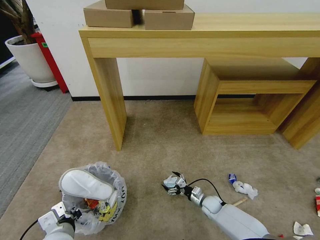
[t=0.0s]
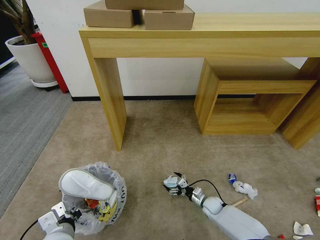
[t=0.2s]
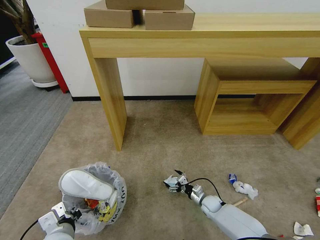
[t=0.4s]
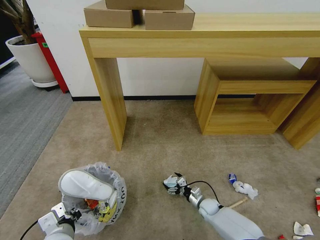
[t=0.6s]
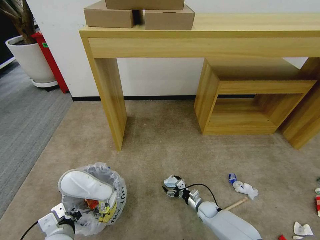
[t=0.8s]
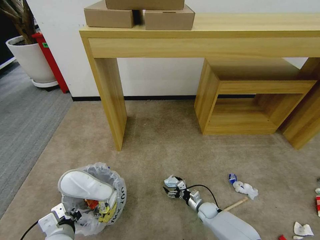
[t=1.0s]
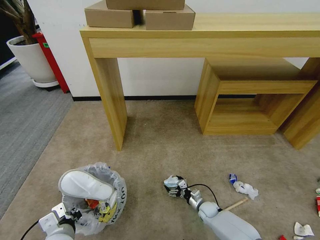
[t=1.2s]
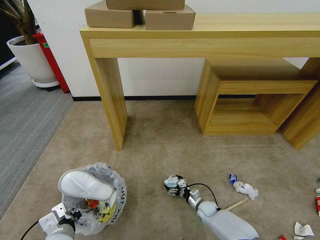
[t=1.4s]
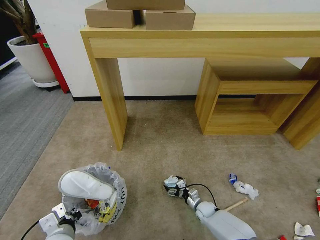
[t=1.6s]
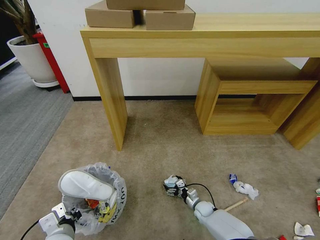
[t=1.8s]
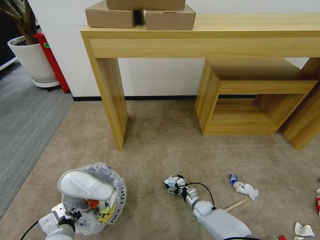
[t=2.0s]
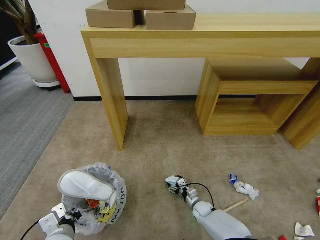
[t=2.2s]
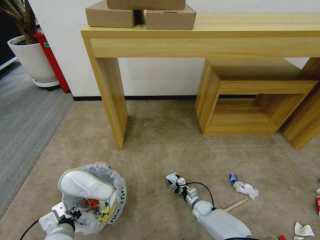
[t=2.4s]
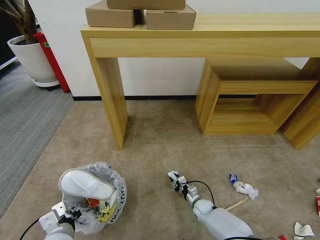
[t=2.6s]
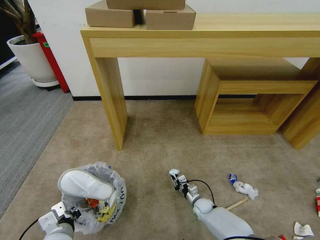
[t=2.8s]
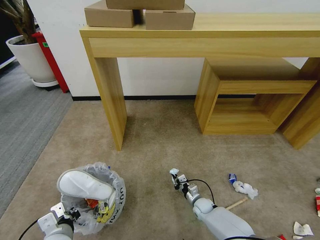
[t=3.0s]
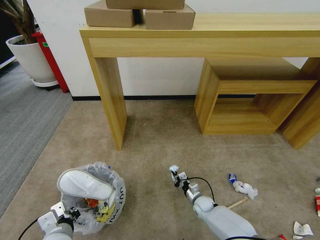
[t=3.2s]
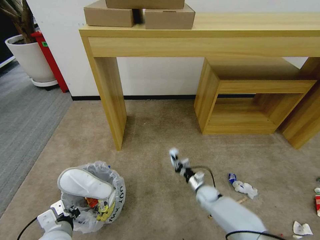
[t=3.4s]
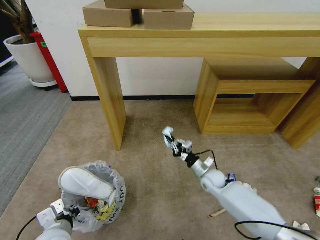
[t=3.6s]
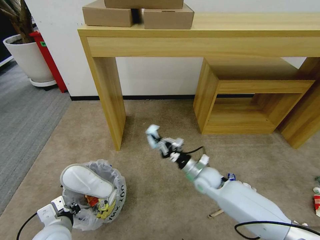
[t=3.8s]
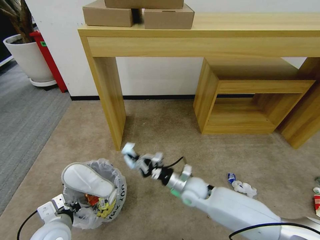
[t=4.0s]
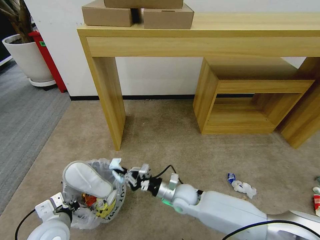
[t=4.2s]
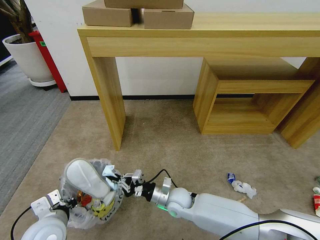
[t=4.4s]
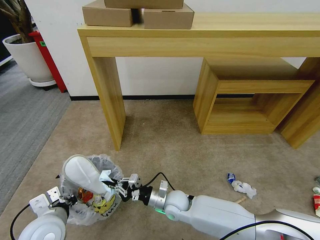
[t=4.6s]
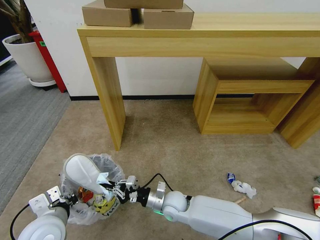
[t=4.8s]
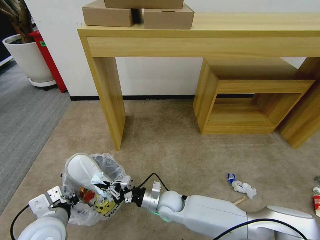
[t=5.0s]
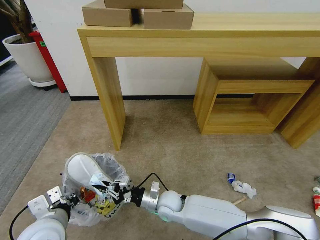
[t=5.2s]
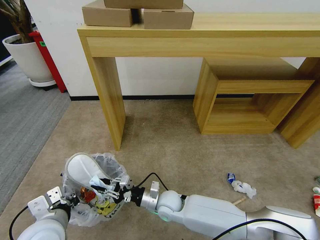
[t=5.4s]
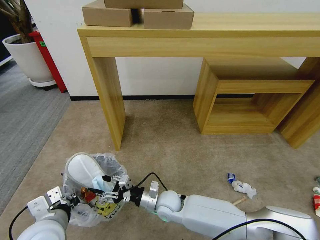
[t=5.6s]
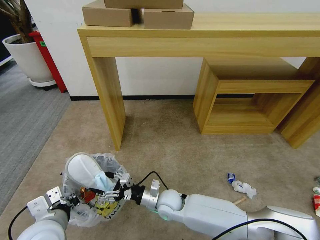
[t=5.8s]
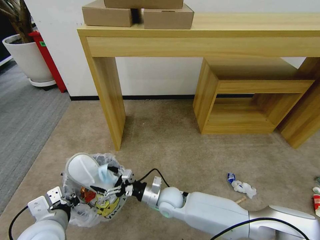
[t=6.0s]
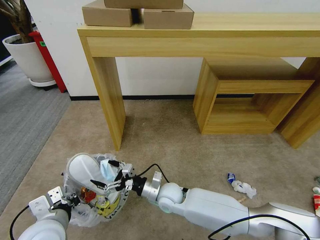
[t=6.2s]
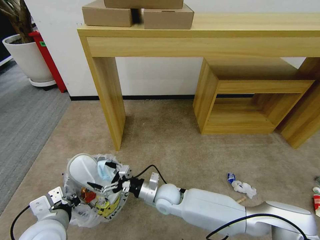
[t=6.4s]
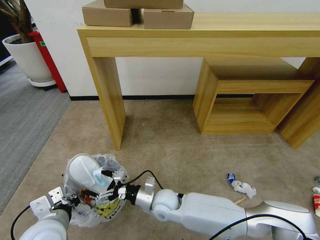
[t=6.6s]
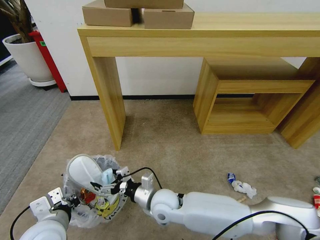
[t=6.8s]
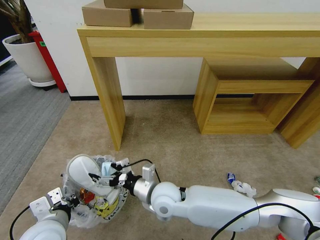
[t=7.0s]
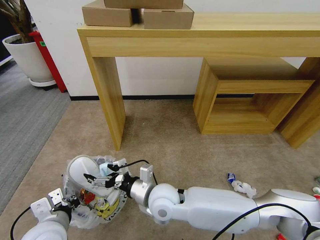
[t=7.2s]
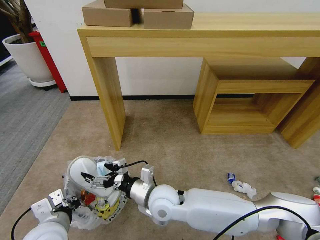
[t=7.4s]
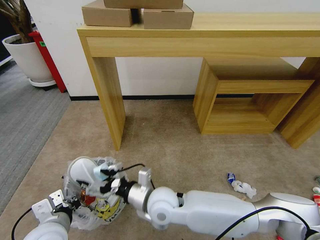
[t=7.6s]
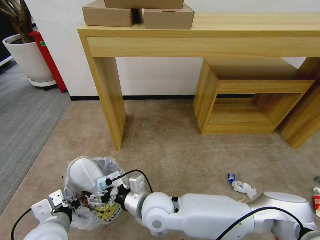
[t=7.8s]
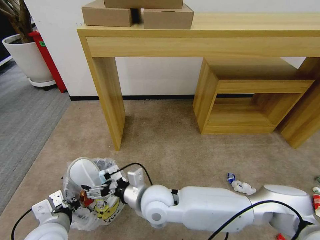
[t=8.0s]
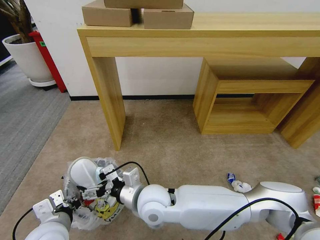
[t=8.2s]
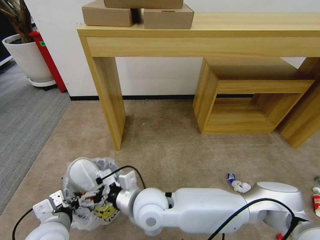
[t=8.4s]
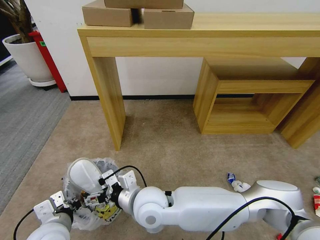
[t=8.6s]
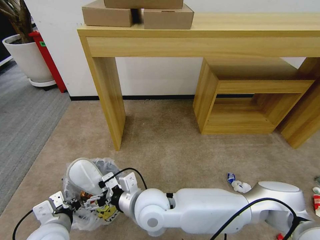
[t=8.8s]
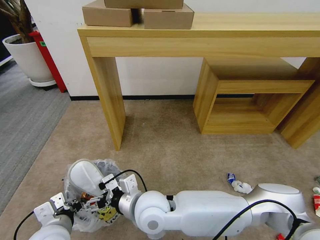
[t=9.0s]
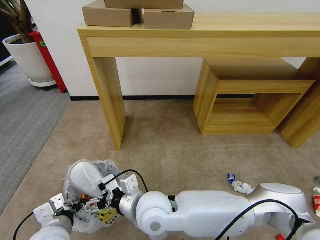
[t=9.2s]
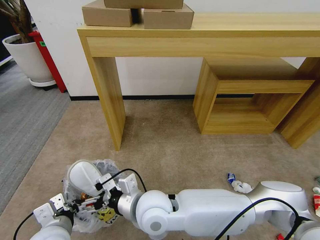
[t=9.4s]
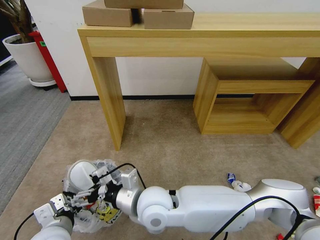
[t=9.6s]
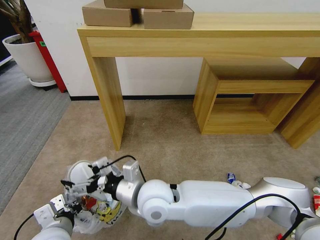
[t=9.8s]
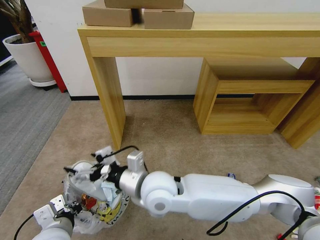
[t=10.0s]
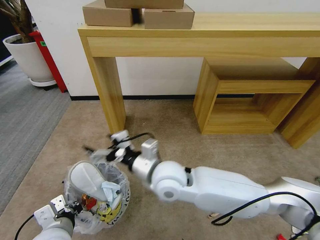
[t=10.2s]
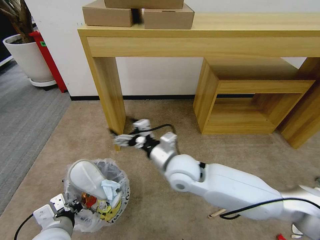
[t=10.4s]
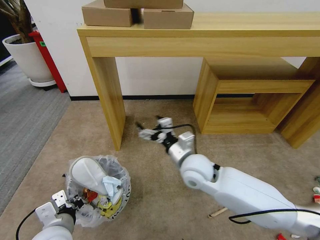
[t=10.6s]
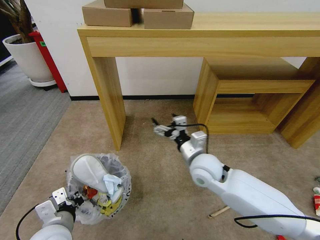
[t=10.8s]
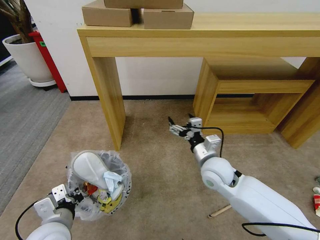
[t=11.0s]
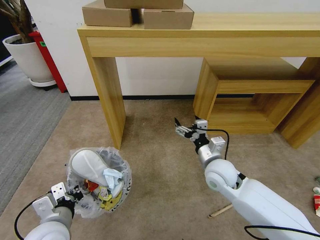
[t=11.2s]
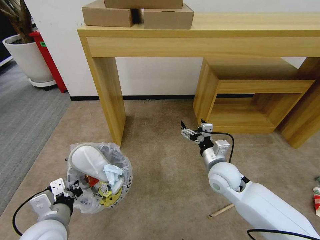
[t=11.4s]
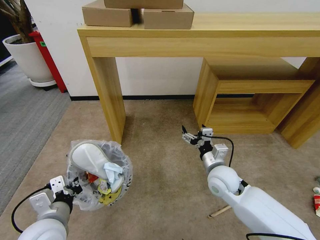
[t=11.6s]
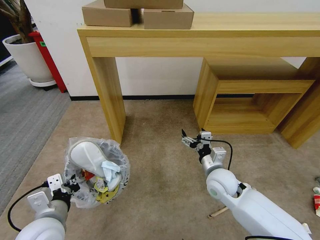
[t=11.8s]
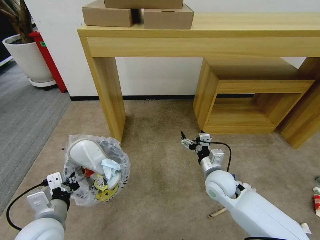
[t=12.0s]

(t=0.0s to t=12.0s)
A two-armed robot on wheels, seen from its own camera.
Task of the whole recording: Pick up the trash bin and place the garbage on the floor into it.
t=0.0s - t=1.6s: The grippers make only small movements.
t=1.6s - t=3.0s: The right gripper closes its fingers.
t=3.0s - t=4.4s: The left gripper travels upward by some 5 cm. The right gripper heads upward and to the left, covering approximately 25 cm.
t=4.4s - t=6.0s: The right gripper opens.
t=6.0s - t=7.6s: The right gripper travels upward by some 10 cm.
t=7.6s - t=9.0s: The right gripper changes place by about 5 cm.
t=9.0s - t=10.4s: The right gripper heads forward and to the right, covering roughly 10 cm.
t=10.4s - t=12.0s: The right gripper is displaced to the right and downward by roughly 20 cm.

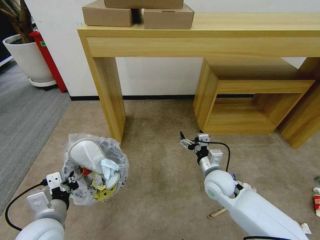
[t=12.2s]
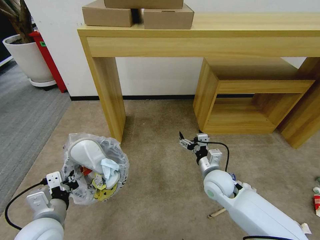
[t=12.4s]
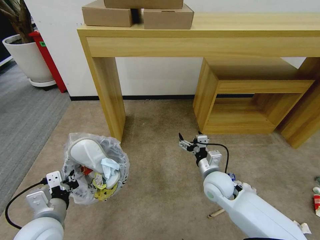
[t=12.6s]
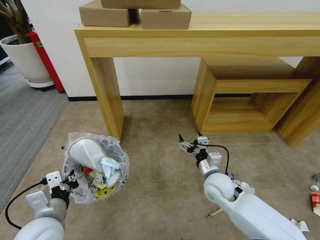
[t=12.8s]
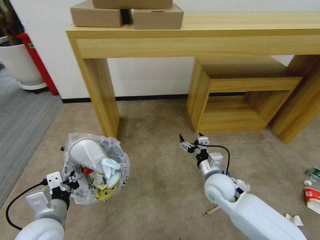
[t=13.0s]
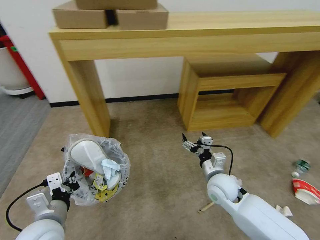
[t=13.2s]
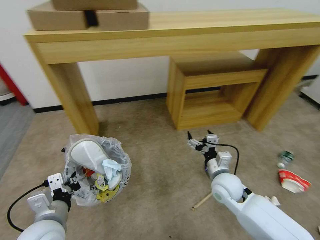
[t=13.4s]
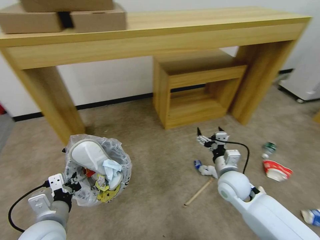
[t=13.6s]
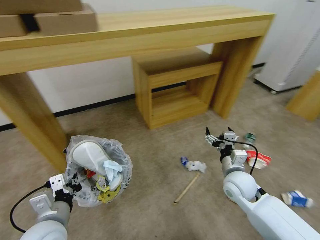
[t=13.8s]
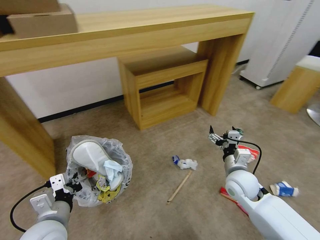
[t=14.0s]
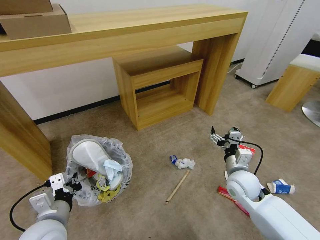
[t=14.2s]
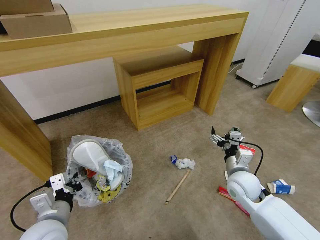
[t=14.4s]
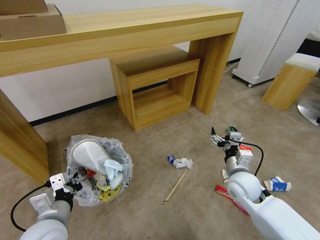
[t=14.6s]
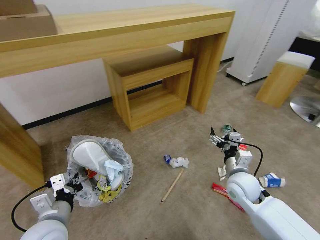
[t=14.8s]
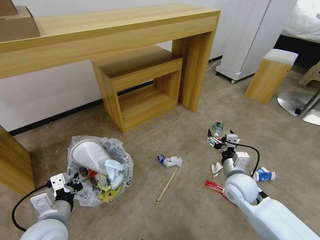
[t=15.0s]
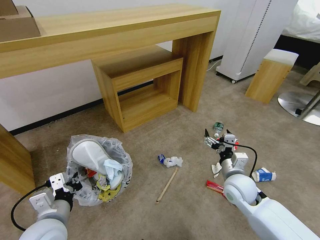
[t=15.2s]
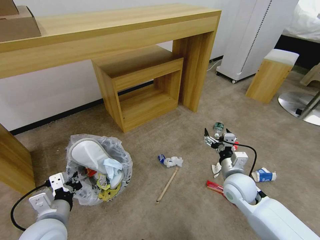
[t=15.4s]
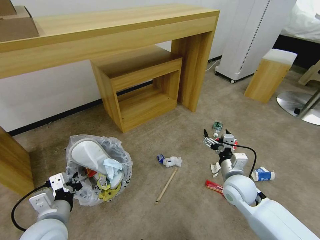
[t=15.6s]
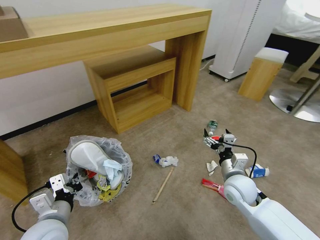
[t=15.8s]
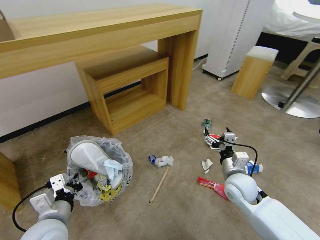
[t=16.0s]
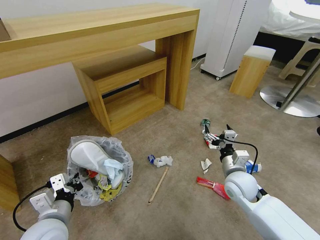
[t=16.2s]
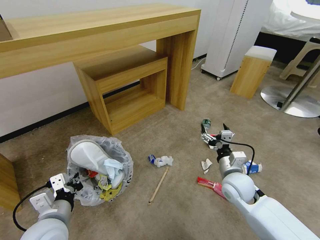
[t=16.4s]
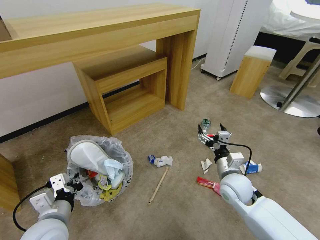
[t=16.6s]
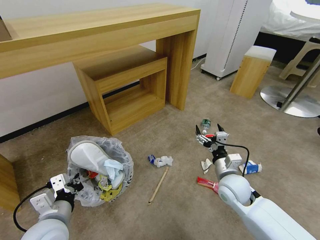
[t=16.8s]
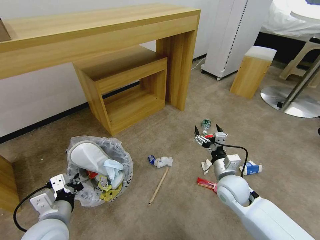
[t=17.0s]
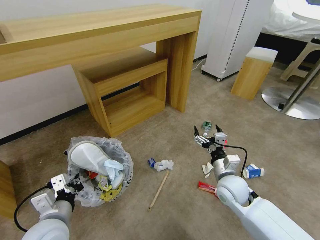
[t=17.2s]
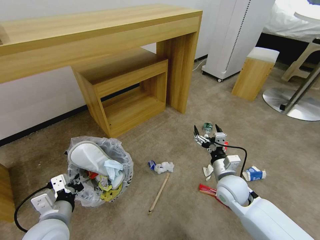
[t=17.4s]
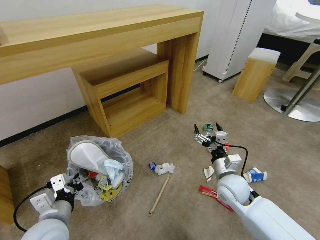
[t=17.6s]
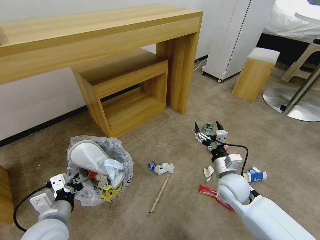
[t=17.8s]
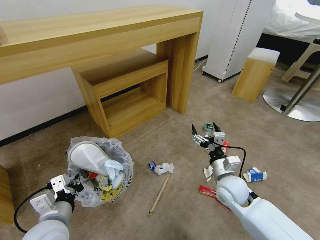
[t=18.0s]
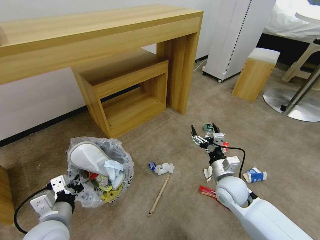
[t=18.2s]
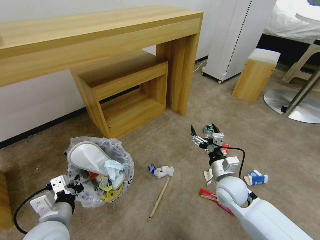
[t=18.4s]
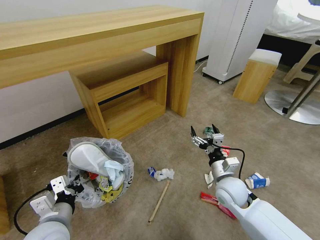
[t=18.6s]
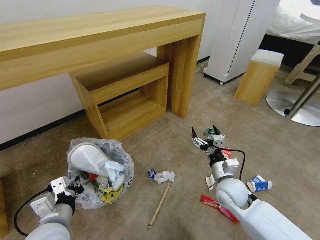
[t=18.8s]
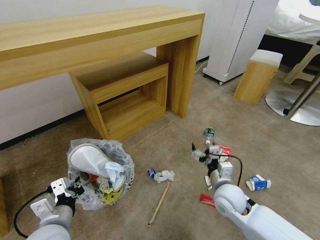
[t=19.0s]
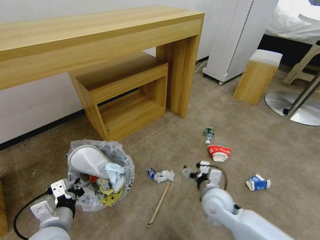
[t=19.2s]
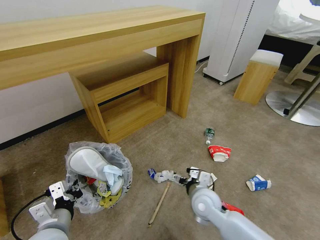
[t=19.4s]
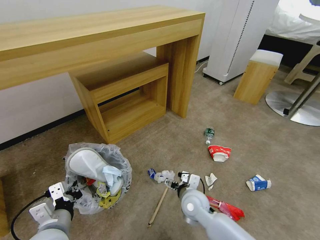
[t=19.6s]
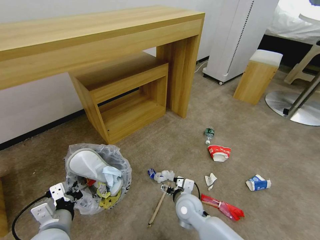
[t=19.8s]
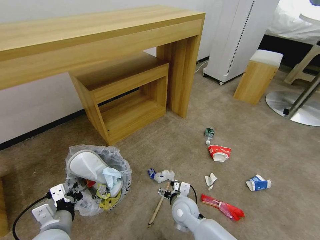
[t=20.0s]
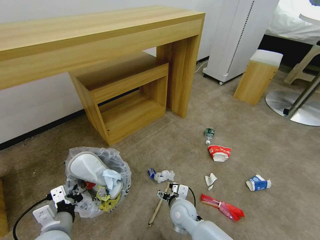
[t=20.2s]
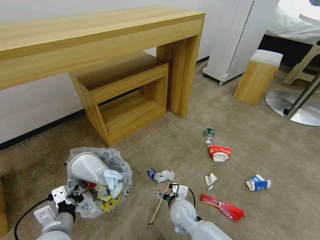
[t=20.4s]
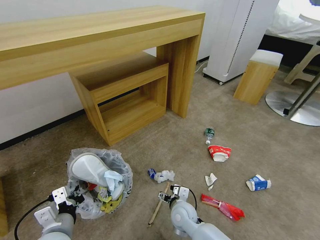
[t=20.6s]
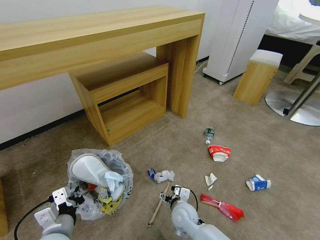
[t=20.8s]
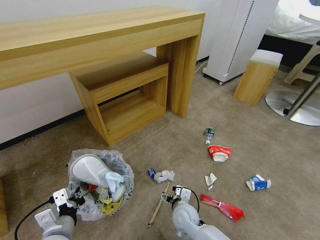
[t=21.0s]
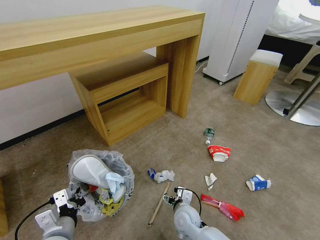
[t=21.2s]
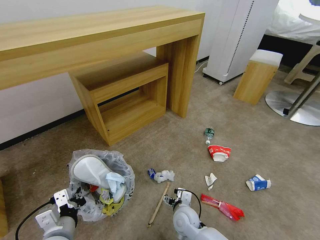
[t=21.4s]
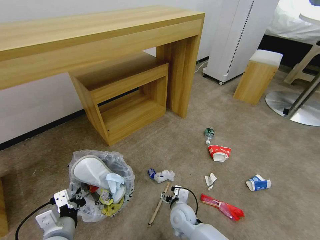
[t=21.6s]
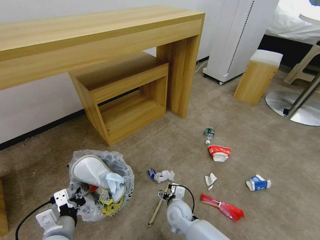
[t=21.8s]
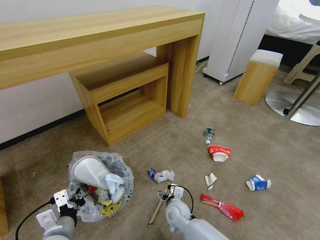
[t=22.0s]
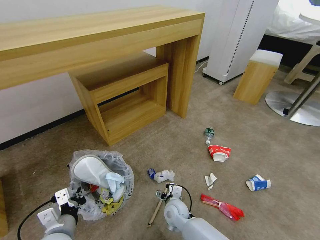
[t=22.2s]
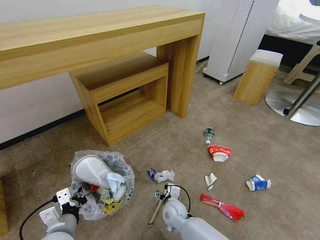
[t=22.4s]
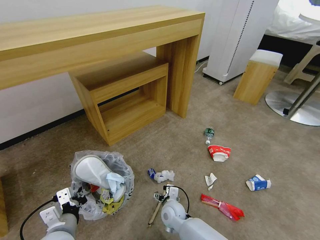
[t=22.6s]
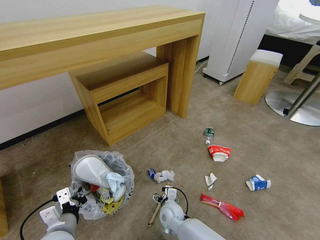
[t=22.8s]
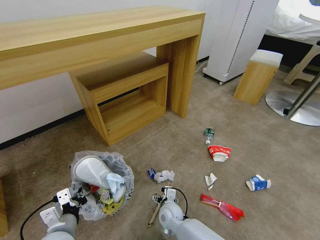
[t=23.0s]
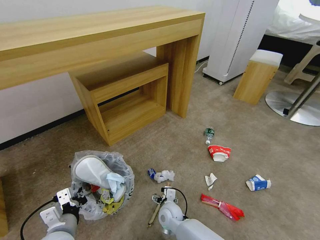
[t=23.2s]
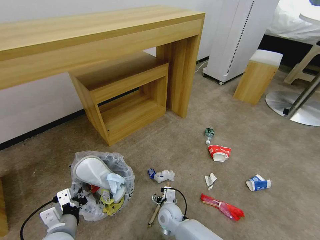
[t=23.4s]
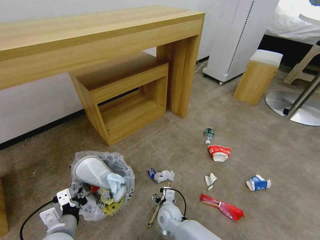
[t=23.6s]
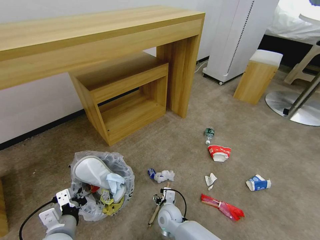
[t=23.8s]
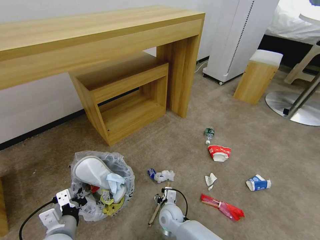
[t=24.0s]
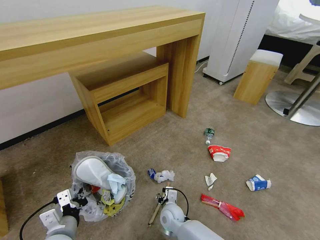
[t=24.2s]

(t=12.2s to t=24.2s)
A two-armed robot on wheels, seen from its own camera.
Task of the whole recording: Pick up the trash bin and place the garbage on the floor into it.
t=12.2s - t=13.8s: The right gripper travels to the right by approximately 5 cm.
t=16.6s - t=18.2s: There are only small adjustments of the grippers.
t=18.2s - t=19.8s: The right gripper goes approximately 15 cm to the left and downward.
t=19.8s - t=21.2s: The right gripper moves roughly 5 cm.
t=21.2s - t=22.6s: The right gripper shifts by some 5 cm.
t=22.6s - t=24.2s: There are only small adjustments of the grippers.
